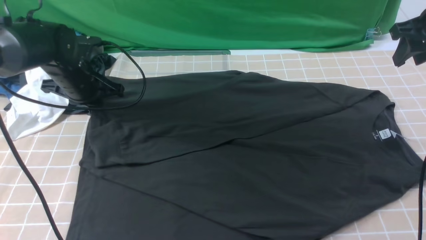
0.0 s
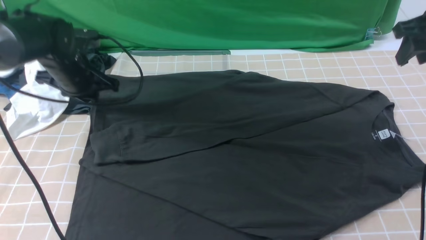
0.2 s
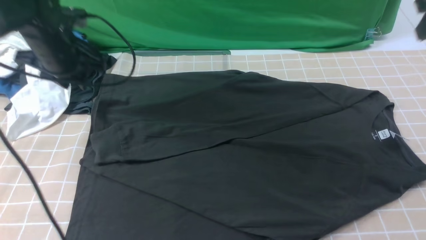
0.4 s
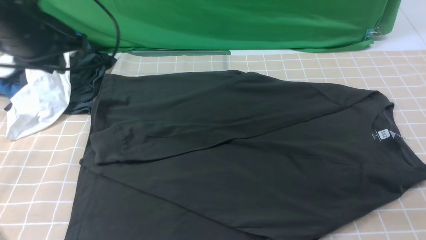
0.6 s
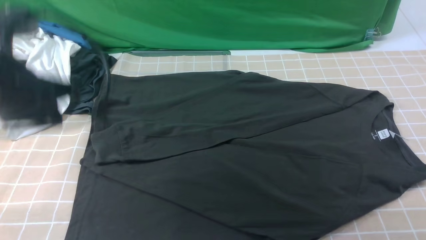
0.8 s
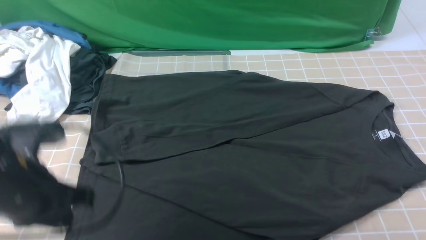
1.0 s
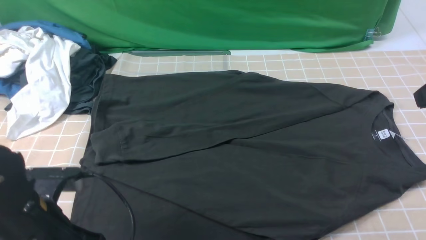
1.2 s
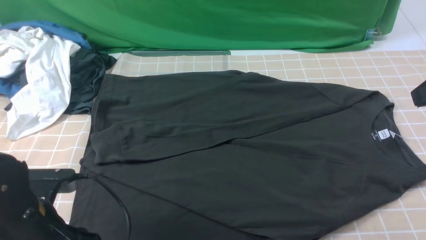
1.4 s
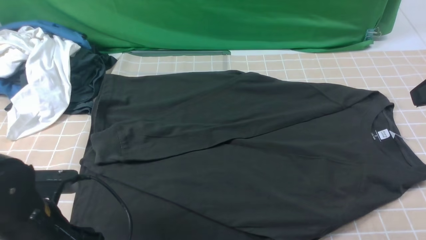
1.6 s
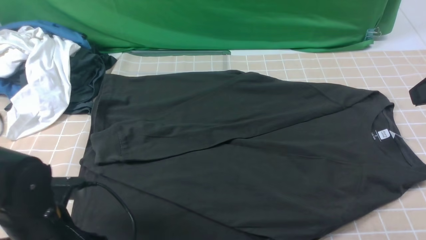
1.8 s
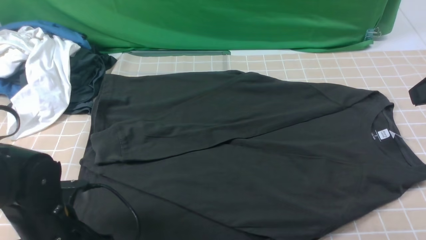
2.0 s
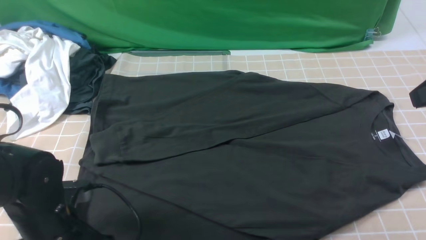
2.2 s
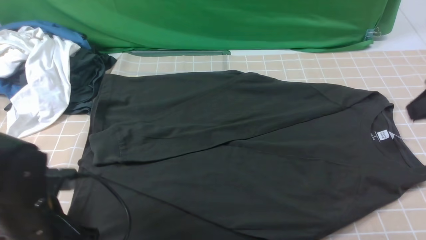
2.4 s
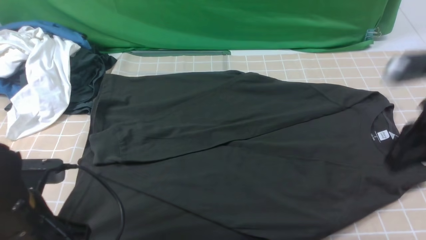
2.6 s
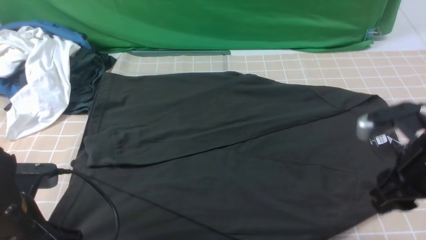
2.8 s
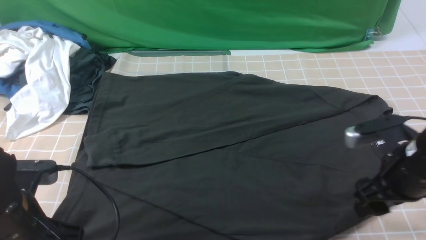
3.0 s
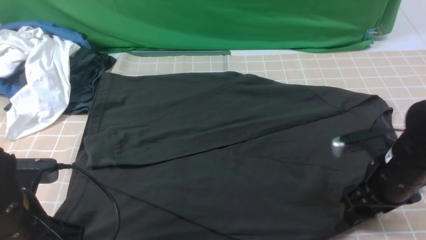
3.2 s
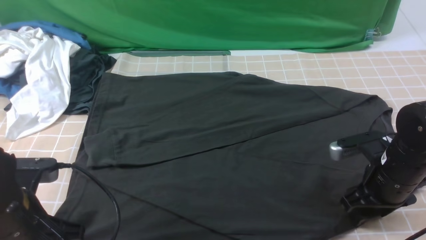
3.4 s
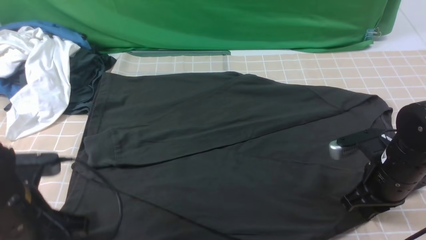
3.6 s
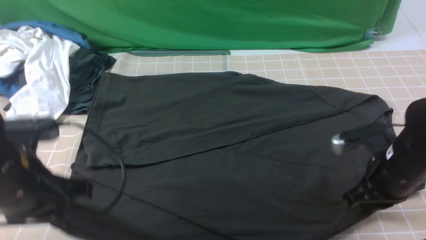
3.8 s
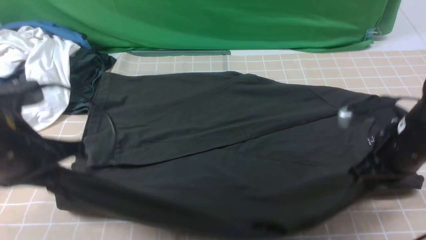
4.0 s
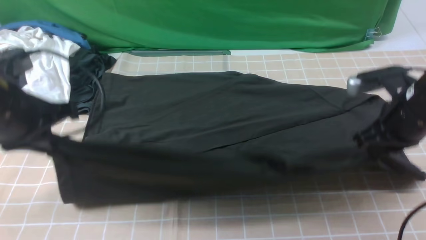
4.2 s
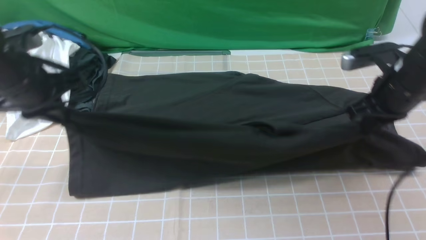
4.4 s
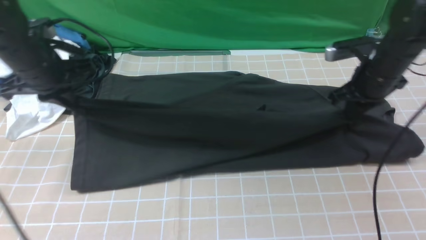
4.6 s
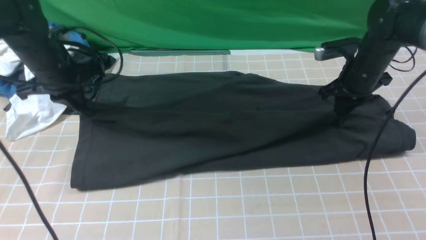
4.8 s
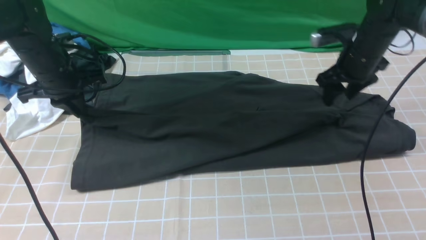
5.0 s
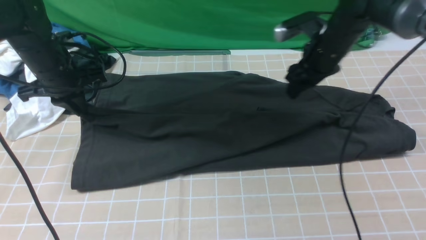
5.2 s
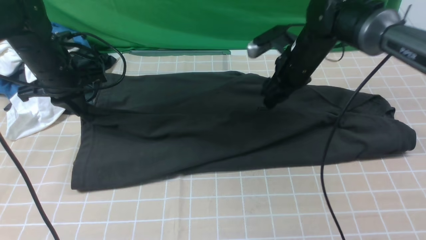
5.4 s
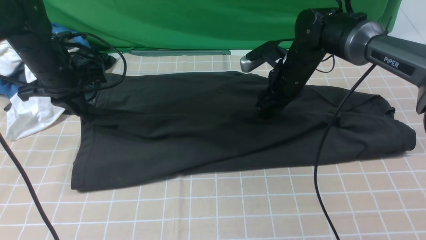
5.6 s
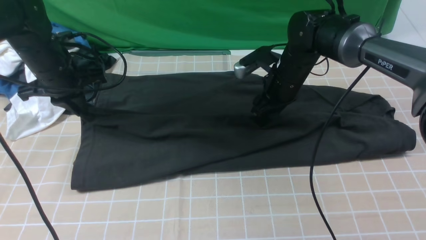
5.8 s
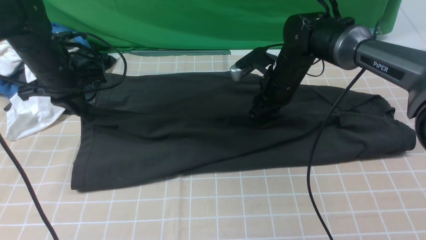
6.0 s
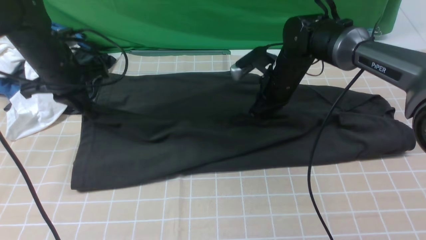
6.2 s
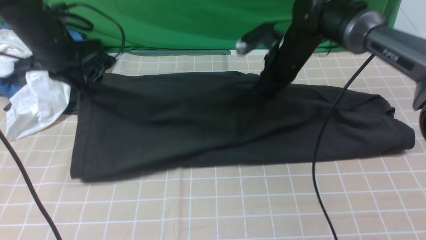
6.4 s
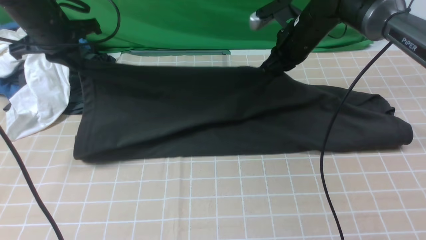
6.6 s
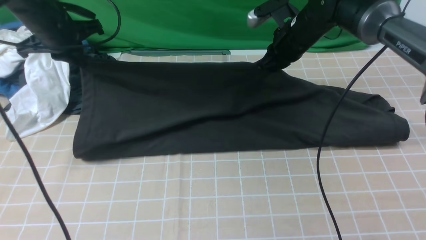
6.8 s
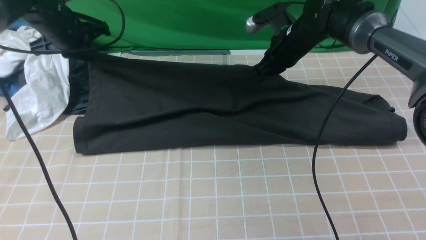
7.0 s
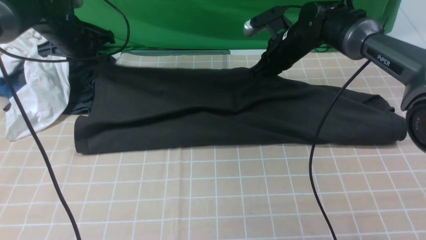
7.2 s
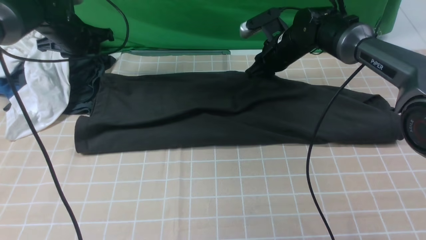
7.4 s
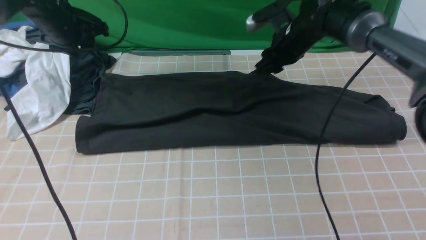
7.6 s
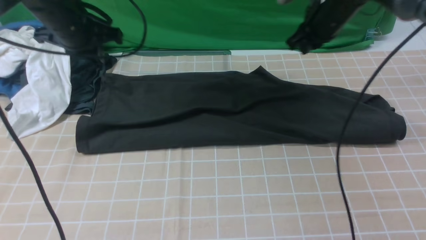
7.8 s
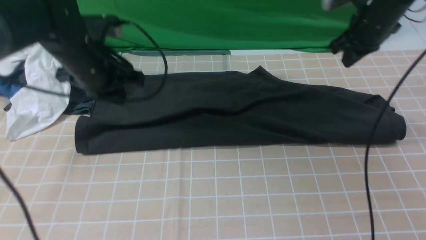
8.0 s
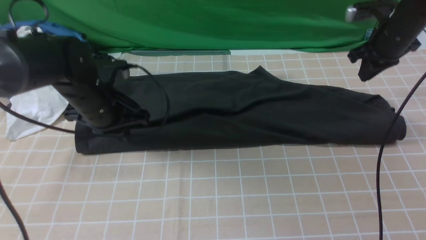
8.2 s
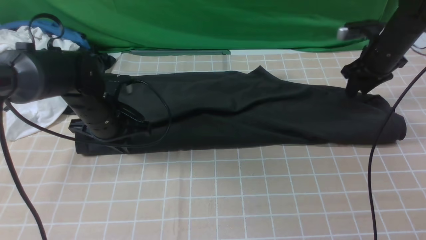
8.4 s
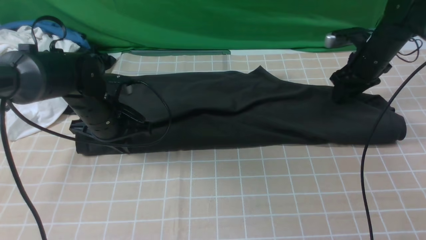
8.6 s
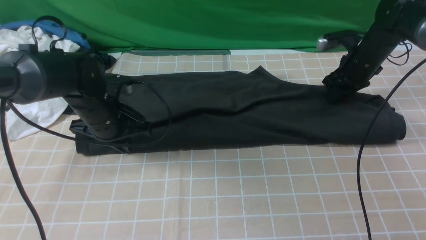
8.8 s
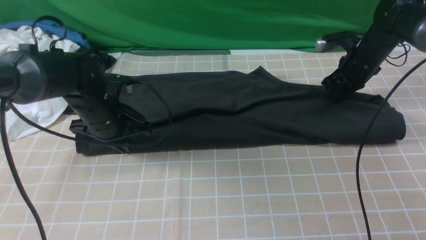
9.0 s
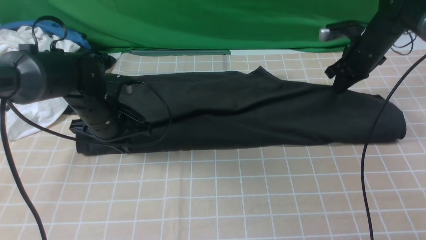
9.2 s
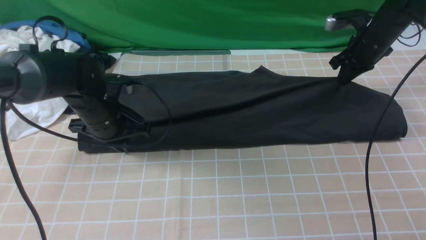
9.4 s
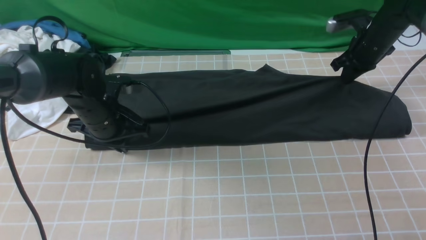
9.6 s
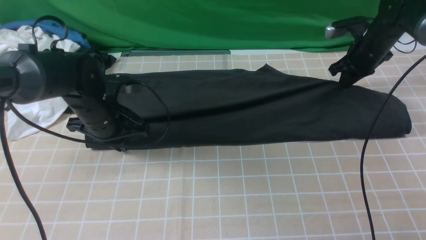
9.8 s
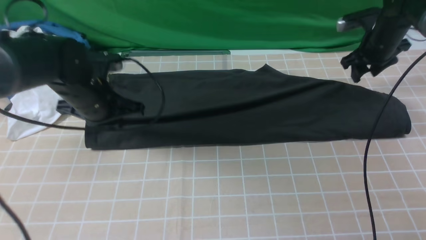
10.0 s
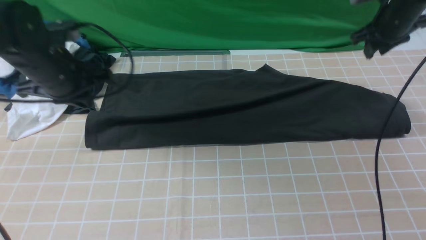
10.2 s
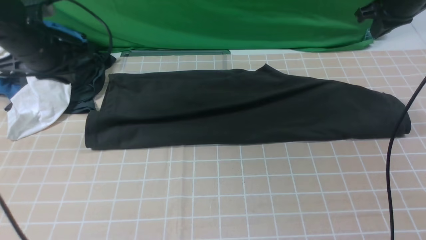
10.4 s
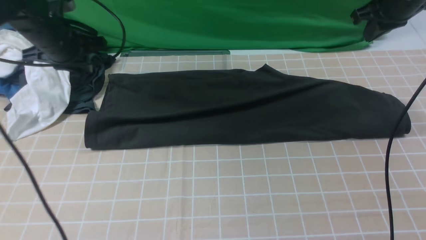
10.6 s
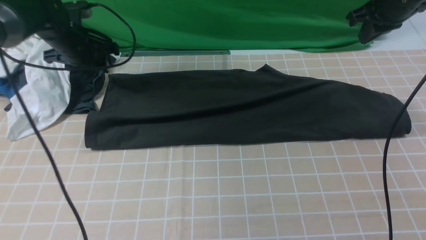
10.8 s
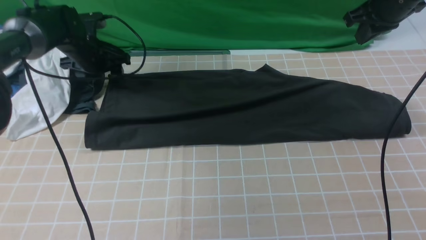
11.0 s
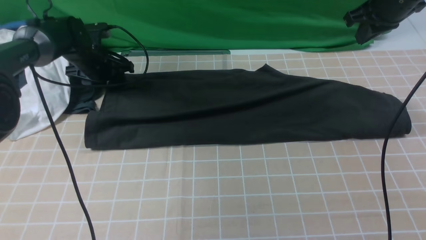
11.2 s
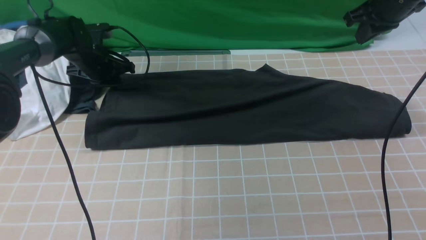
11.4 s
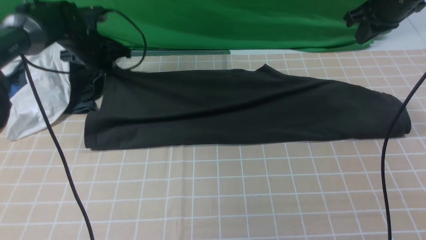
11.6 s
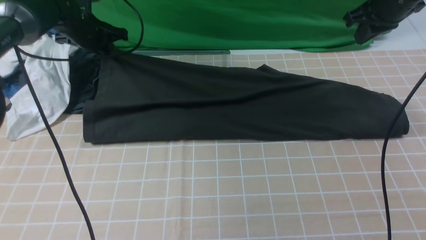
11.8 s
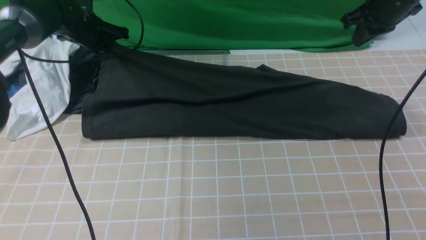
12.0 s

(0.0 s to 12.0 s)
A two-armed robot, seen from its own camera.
Step, 0.0 s - 3.6 s: use both arms simultaneously to clamp the lower edge of the clothing fabric.
Step, 4.0 s - 7.4 s: use both arms to drag the lower edge of the fabric forward and fold it over the upper edge.
0.0 s - 1.6 s: The left gripper moves backward, about 25 cm, and opens; the right gripper moves backward, approximately 15 cm, and closes.
1.6 s - 3.0 s: The right gripper is displaced downward by about 15 cm, and opens its fingers. Meanwhile the left gripper closes its fingers.
3.0 s - 4.4 s: The left gripper is displaced forward and upward by about 20 cm. The right gripper heads forward, covering roughly 10 cm, and closes.
4.4 s - 6.0 s: The right gripper goes some 20 cm to the left, forward and downward, and opens its fingers, while the left gripper is displaced forward and downward by some 10 cm.
6.0 s - 7.6 s: The left gripper goes roughly 5 cm forward, and opens its fingers. Meanwhile the right gripper shifts roughly 10 cm upward and forward, and closes and opens again.
7.6 s - 9.0 s: The left gripper heads backward, downward and to the right, covering roughly 15 cm, and closes its fingers. The right gripper moves to the right and downward, approximately 15 cm.
9.0 s - 10.4 s: The right gripper travels upward by some 15 cm, and opens and closes again. Meanwhile the left gripper travels upward and to the left by approximately 10 cm.
10.4 s - 12.0 s: The left gripper is displaced forward and downward by some 15 cm, and opens, then closes once more.

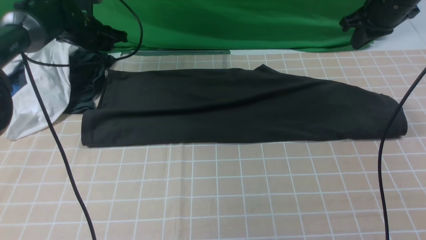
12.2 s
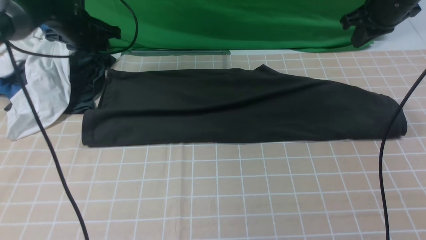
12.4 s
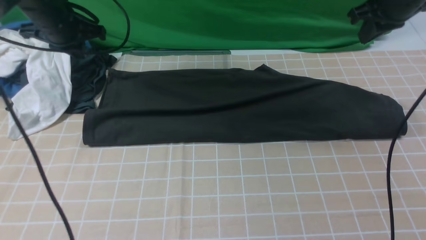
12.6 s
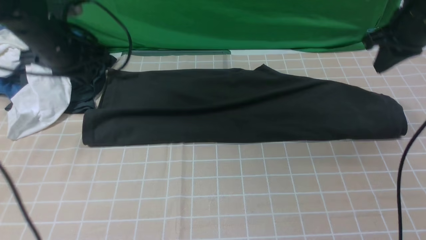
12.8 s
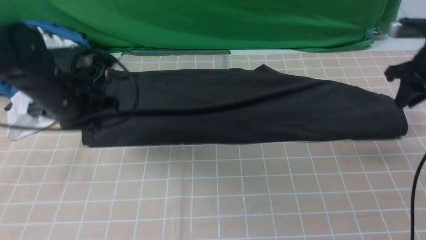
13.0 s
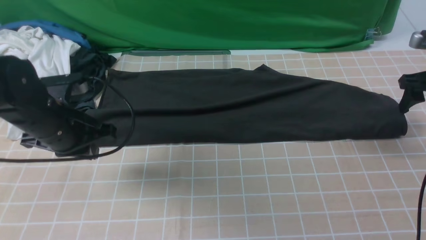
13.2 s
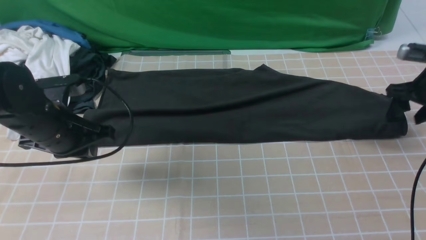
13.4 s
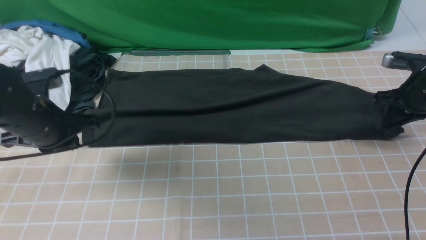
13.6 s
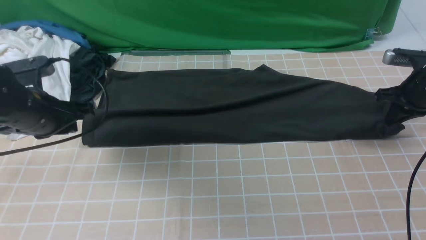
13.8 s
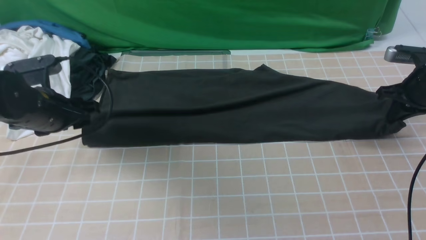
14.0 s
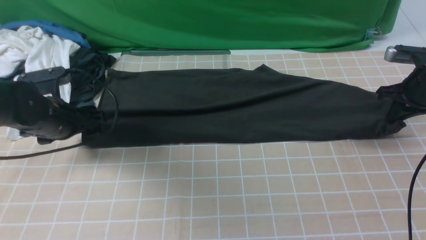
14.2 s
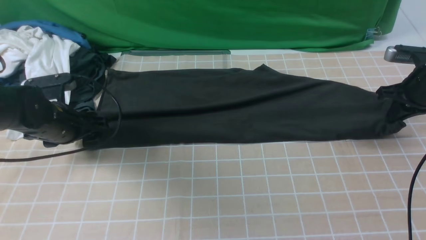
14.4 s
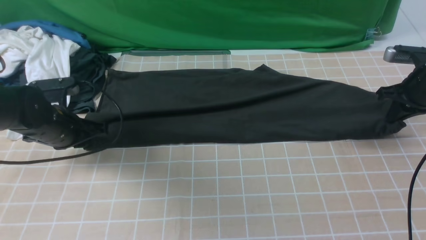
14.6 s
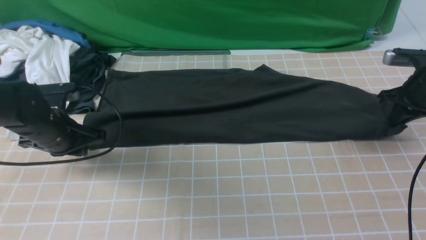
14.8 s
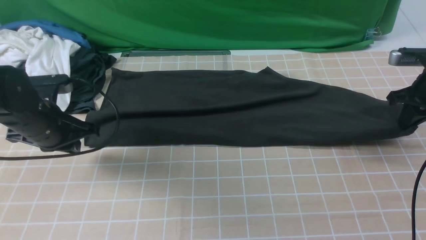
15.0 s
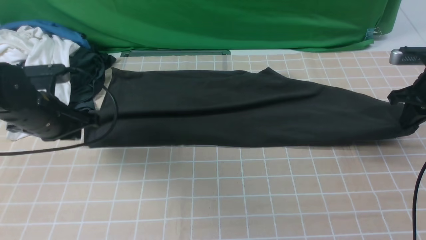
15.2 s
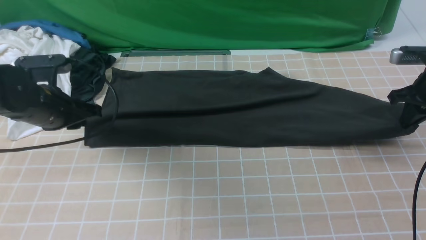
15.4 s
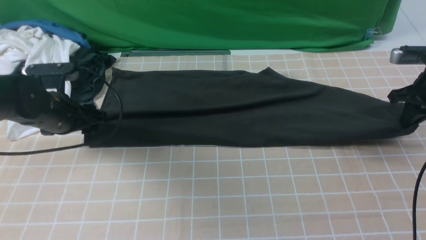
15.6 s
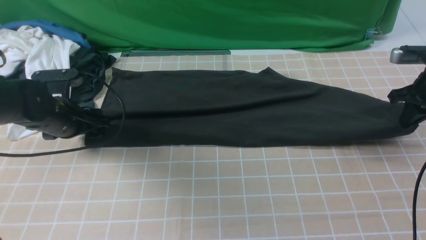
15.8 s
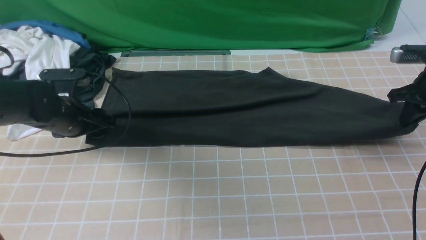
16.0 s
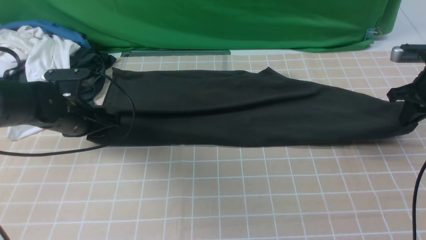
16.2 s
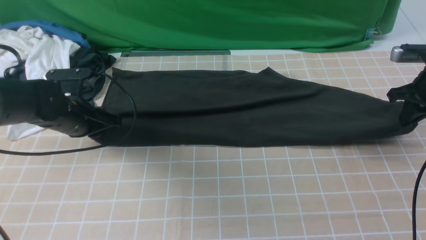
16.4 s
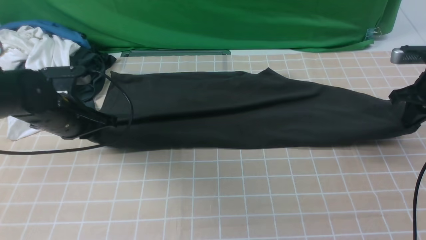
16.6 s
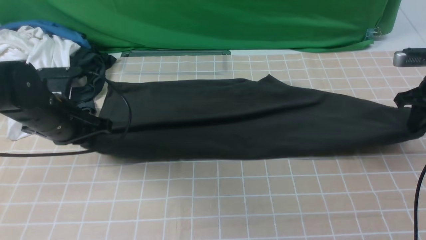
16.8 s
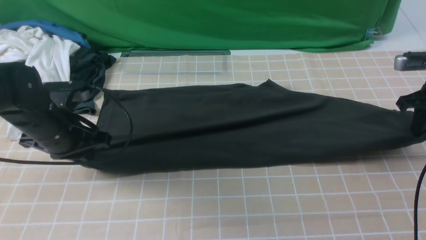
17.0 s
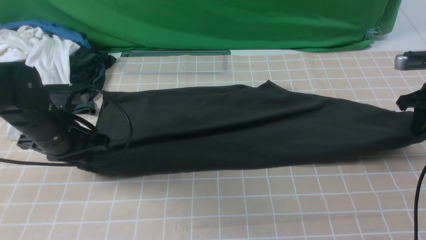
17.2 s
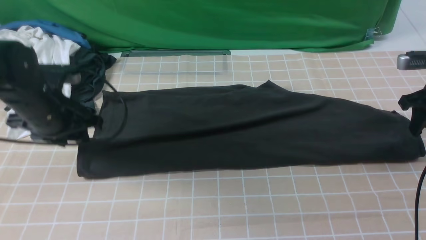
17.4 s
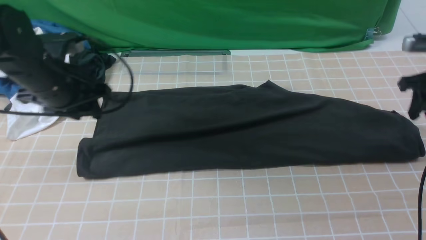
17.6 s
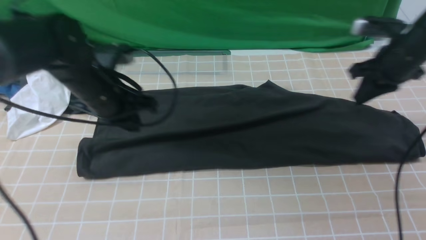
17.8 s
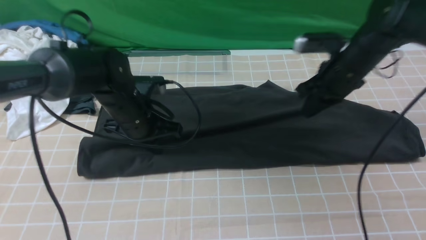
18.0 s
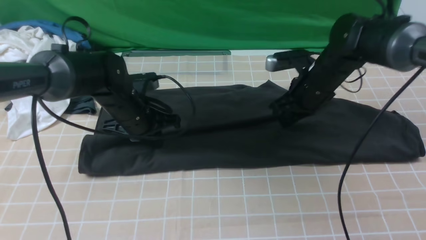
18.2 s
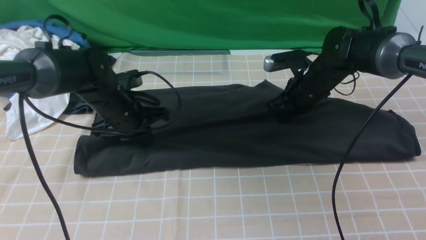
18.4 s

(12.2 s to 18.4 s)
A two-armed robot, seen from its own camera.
12.2 s - 13.8 s: The left gripper travels backward by roughly 20 cm, and closes, then opens again. The right gripper heads downward, to the right and backward, covering approximately 15 cm, and opens, then closes once more.
13.8 s - 15.4 s: The left gripper closes, then opens again.
15.4 s - 16.8 s: The left gripper closes its fingers.
16.8 s - 18.4 s: The right gripper is displaced to the left by about 20 cm, and opens and closes again. The left gripper travels to the right and forward by some 10 cm, and opens, then closes again.
